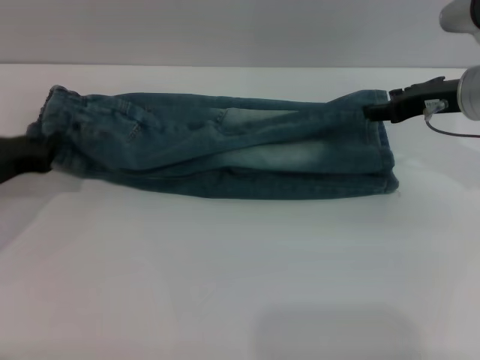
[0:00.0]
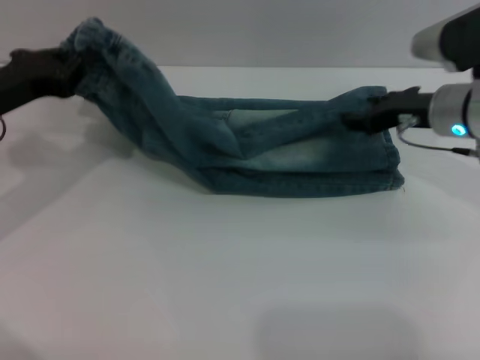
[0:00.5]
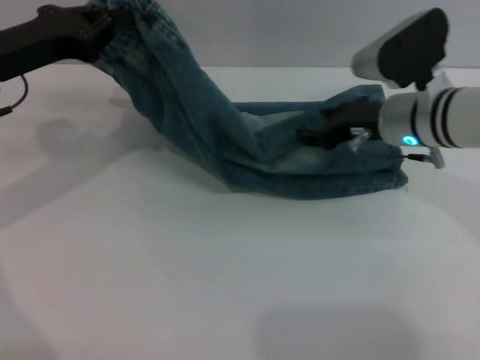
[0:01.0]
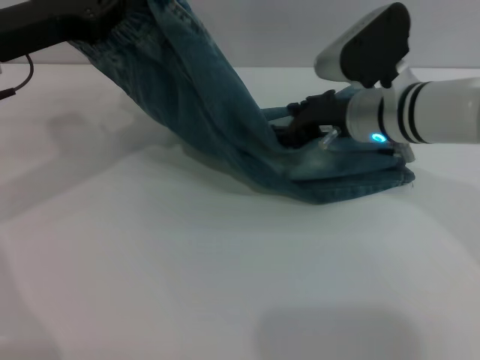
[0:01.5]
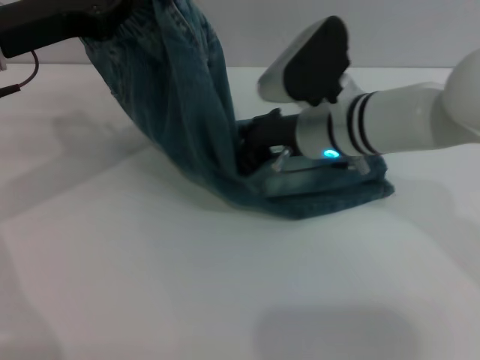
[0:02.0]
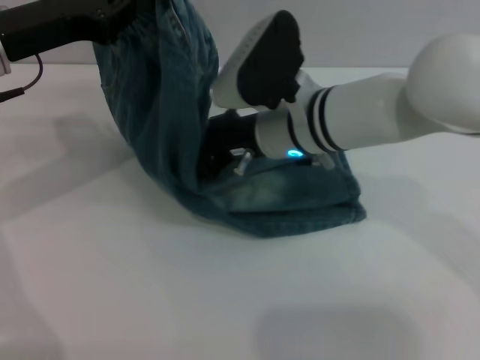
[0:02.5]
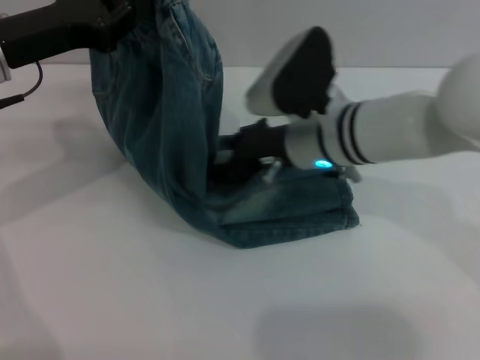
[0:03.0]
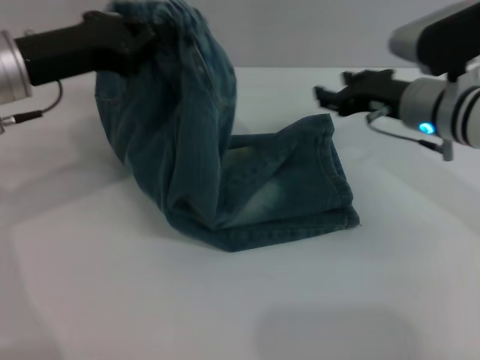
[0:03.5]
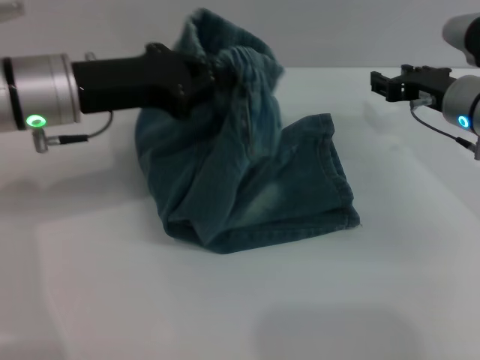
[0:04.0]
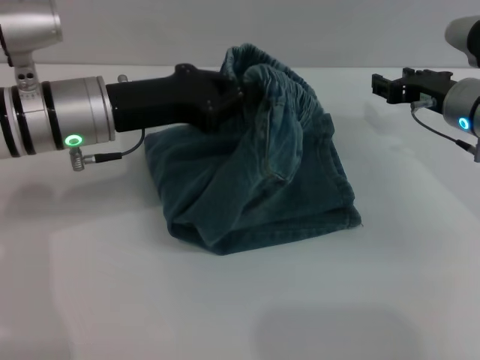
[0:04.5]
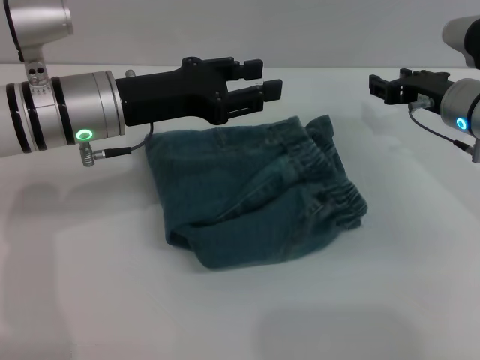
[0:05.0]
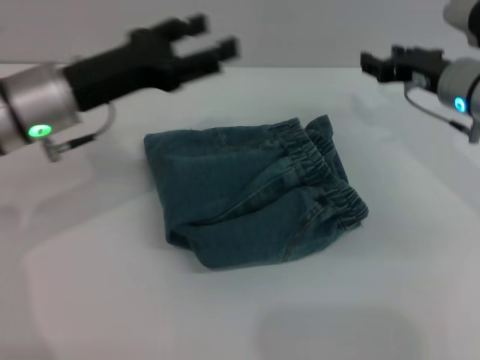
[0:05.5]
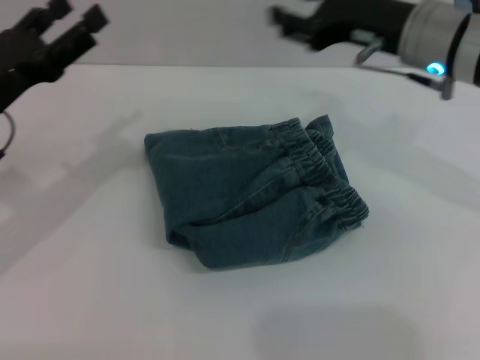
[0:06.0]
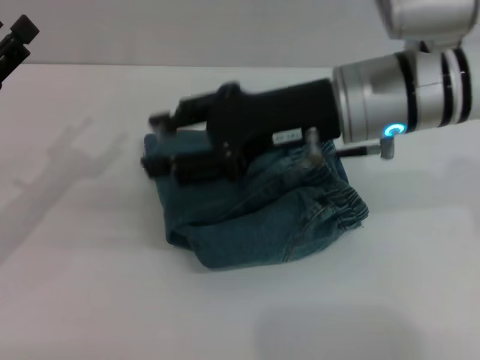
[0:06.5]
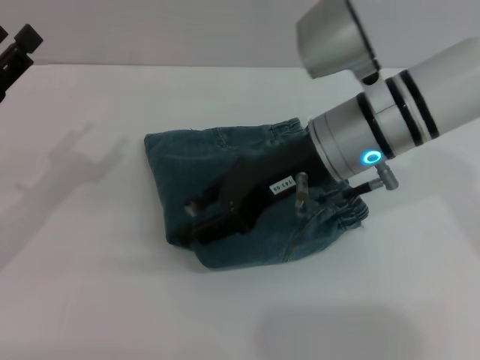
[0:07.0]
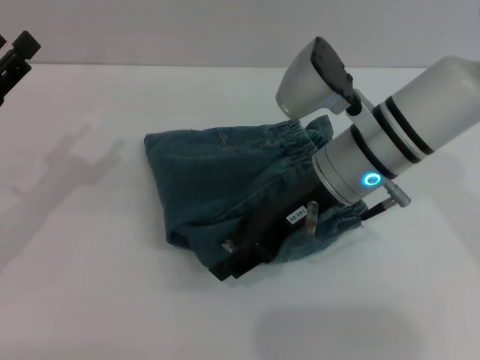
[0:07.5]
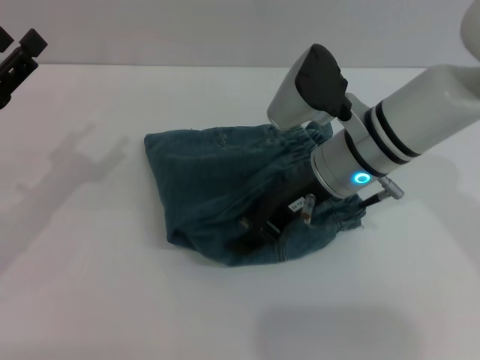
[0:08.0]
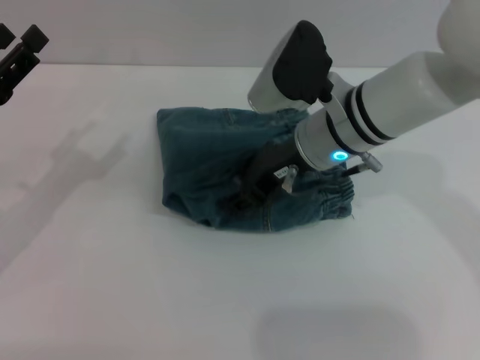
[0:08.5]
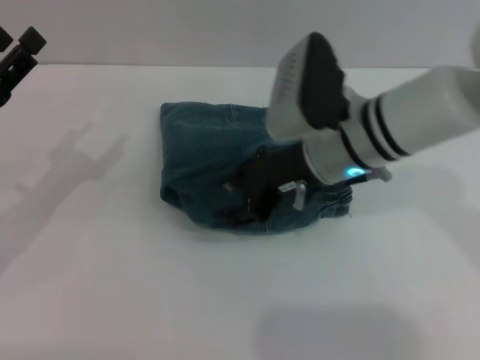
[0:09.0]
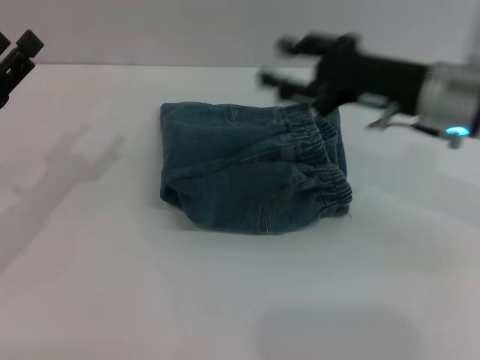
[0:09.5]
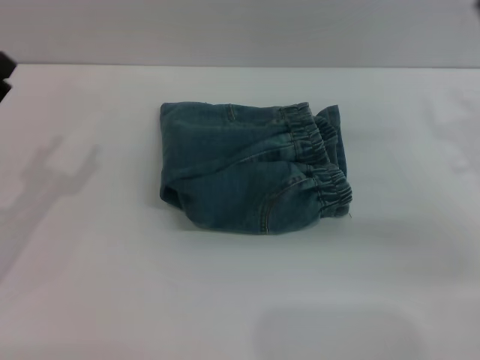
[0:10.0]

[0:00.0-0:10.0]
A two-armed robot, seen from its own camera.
Step, 0:00.0 to 0:04.5: Fold the pants from left to right with the left gripper.
Step, 0:05.0 to 0:09.0: Place the folded trousers onto the center area with the right grippers.
0:00.0 to 0:02.0: The right gripper is displaced to the left by approximately 15 cm; the left gripper goes about 15 cm upward and to the right.
0:02.0 to 0:04.0: The left gripper goes roughly 5 cm to the right, while the right gripper travels to the right by about 15 cm.
0:04.0 to 0:06.0: The right gripper heads upward and to the left, covering about 10 cm; the left gripper goes roughly 5 cm to the left, and opens up.
0:06.0 to 0:08.0: The left gripper shifts by approximately 5 cm. The right gripper is displaced downward and to the left by approximately 10 cm.
0:08.0 to 0:10.0: The right gripper moves to the right, roughly 20 cm.

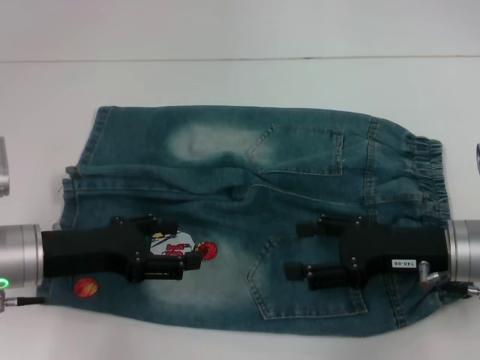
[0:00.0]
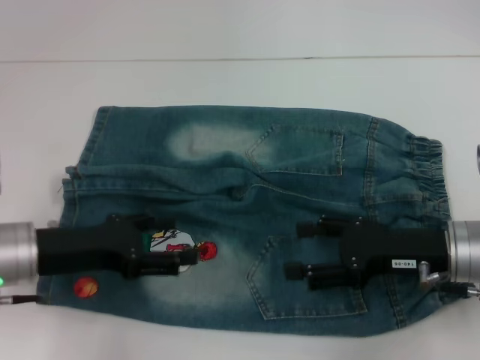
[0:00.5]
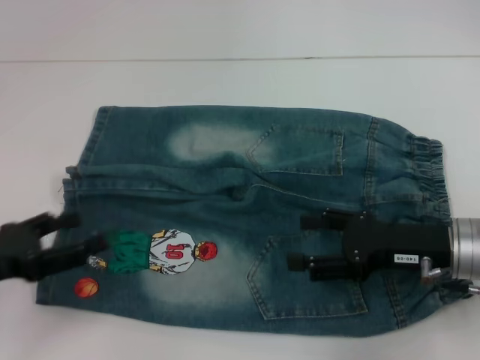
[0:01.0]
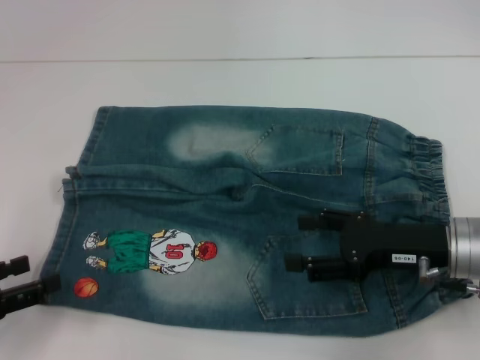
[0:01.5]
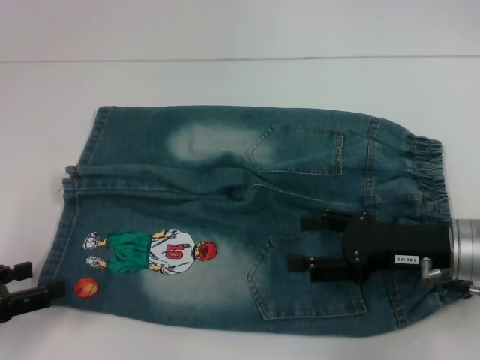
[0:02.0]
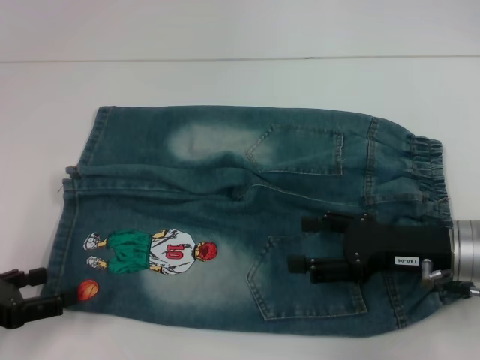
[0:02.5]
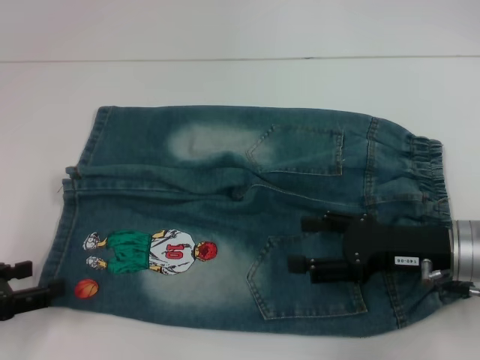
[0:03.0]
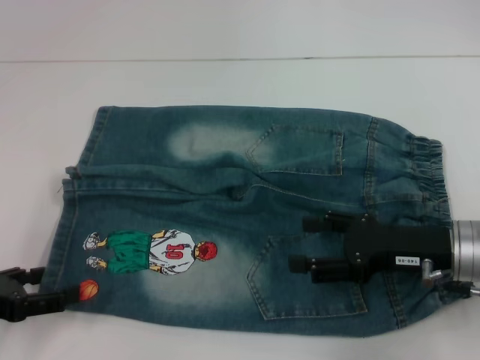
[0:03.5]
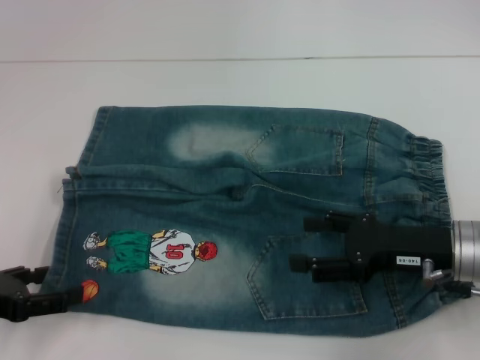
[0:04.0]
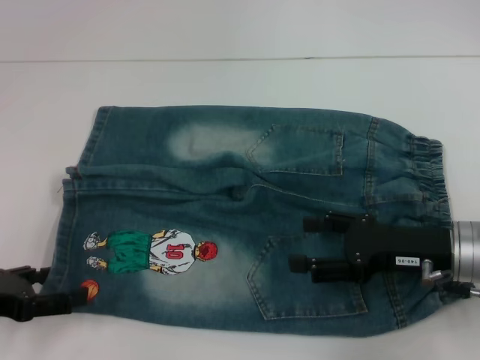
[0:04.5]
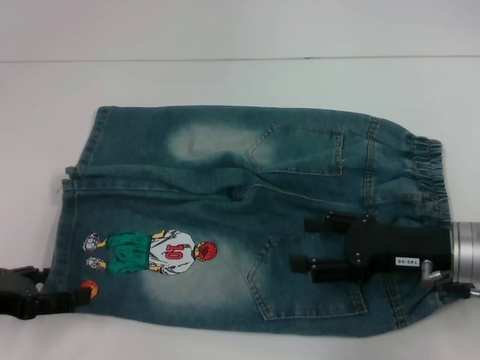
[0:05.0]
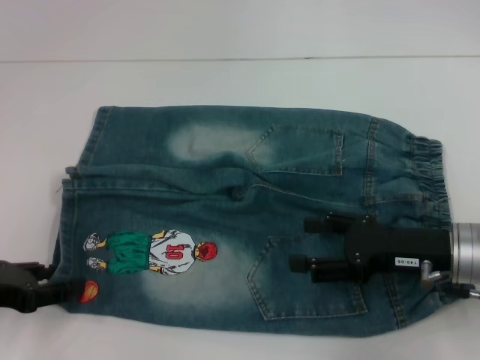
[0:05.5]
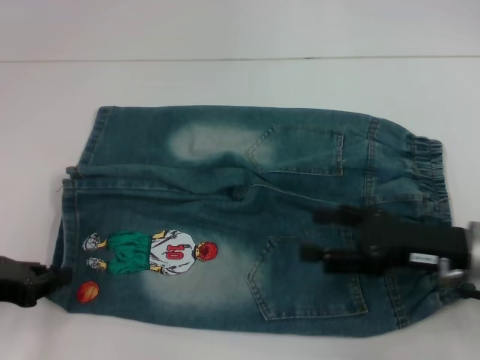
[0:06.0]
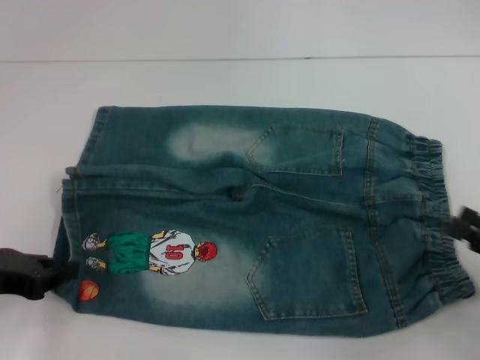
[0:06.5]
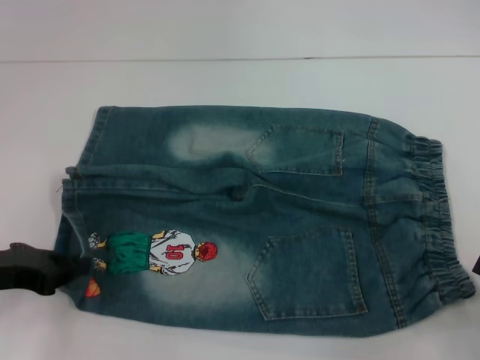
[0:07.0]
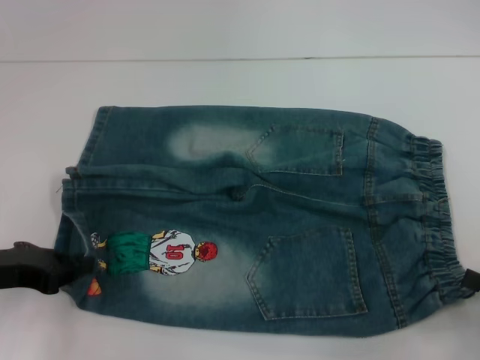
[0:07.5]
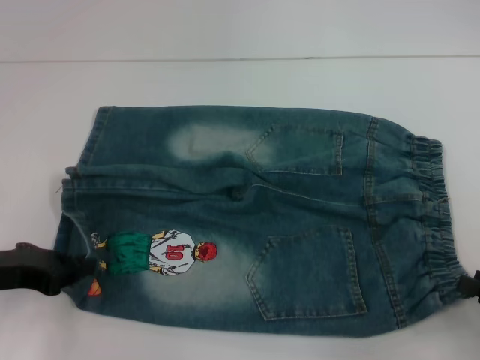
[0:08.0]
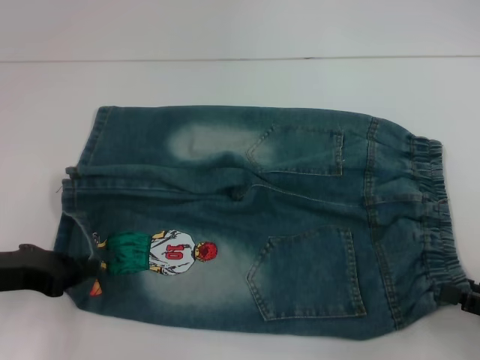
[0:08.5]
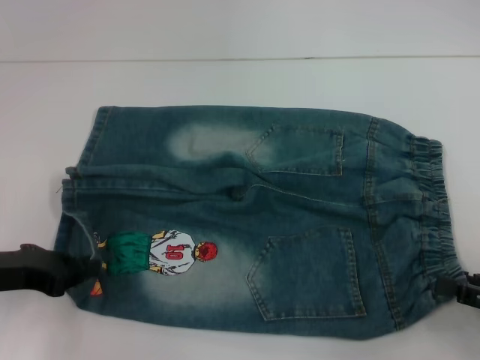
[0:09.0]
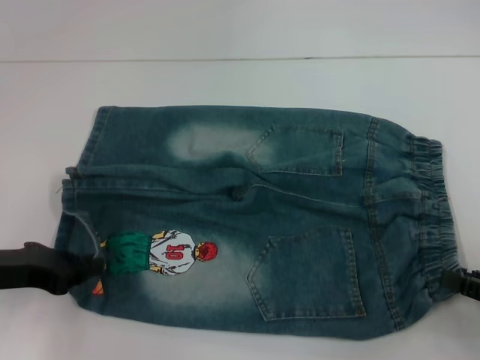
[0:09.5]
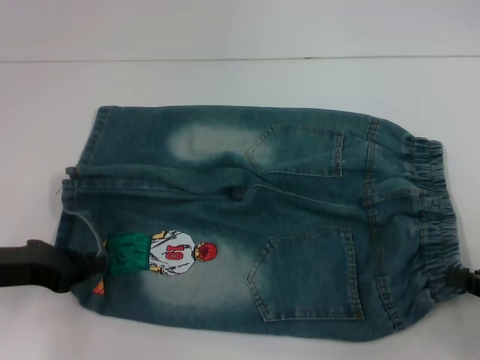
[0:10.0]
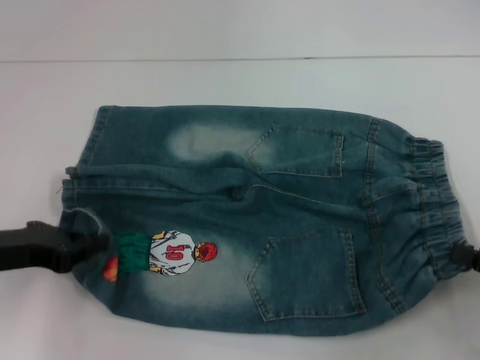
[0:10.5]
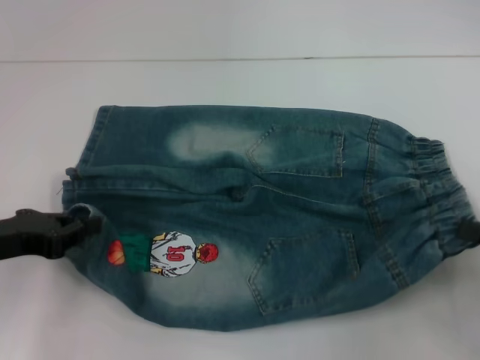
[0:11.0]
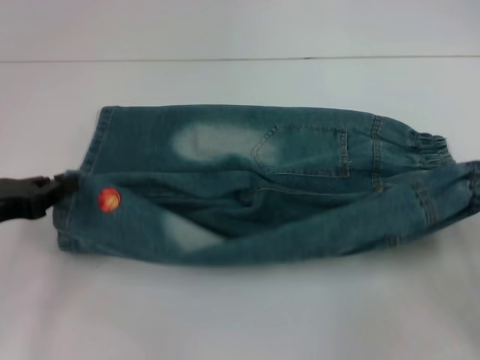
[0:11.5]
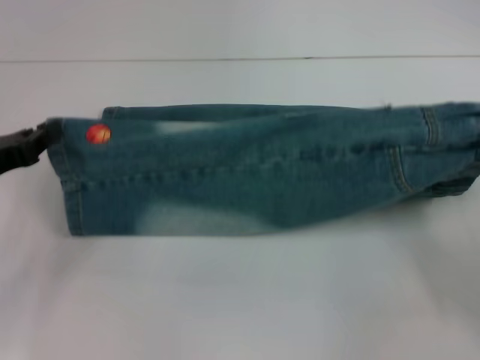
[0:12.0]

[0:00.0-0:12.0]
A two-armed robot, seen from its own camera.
Step, 0:00.0 to 0:05.5: Grab the lower left pant leg with your left hand.
Step, 0:06.0 to 0:09.5: Hold the lower right waistband with your right hand.
0:00.0 to 0:02.0: The left gripper moves to the left and backward, roughly 15 cm.
0:02.0 to 0:04.0: The grippers stay close to where they were, moving slightly.
0:04.0 to 0:06.0: The left gripper closes its fingers.
0:06.0 to 0:08.0: The right gripper shifts roughly 15 cm to the right and backward.
0:08.0 to 0:10.0: The right gripper closes.
0:10.0 to 0:12.0: The right gripper ends up approximately 5 cm from where it was.

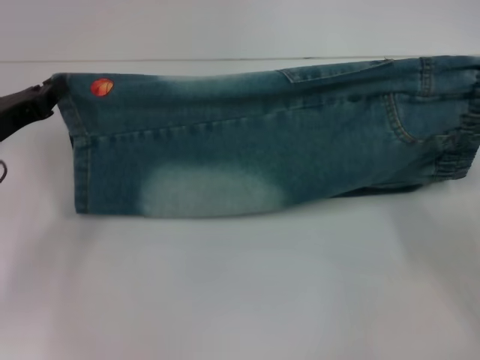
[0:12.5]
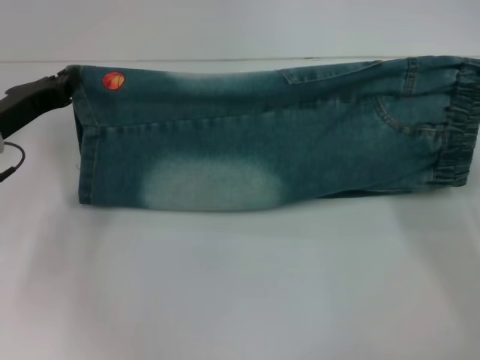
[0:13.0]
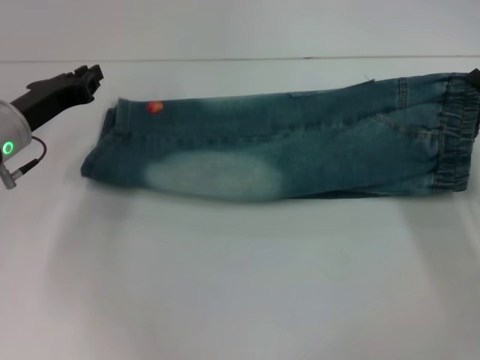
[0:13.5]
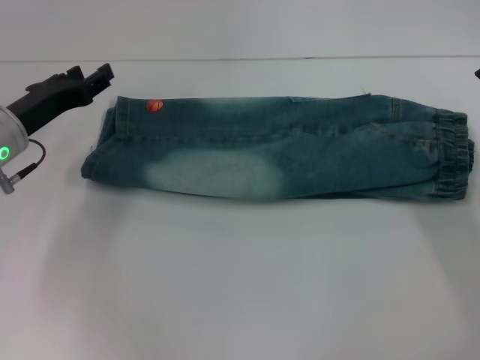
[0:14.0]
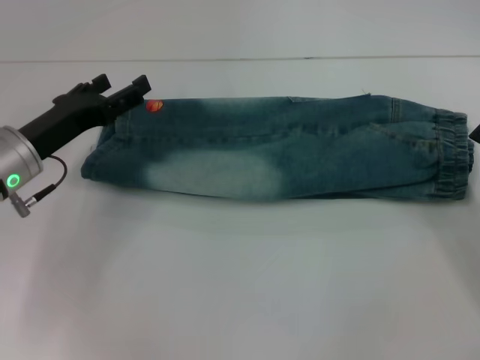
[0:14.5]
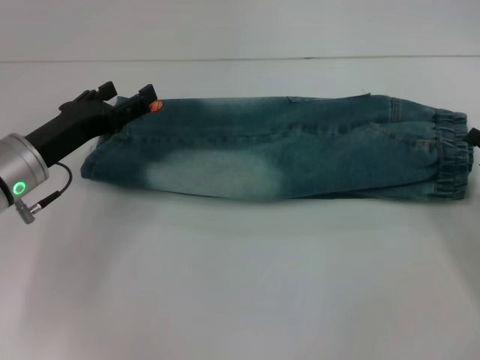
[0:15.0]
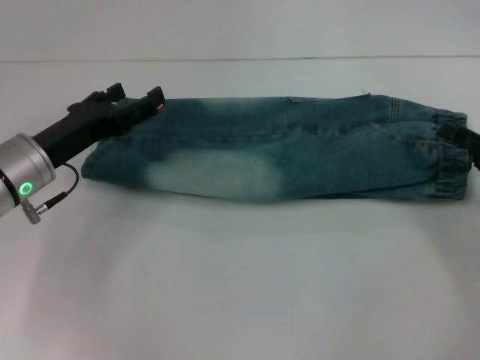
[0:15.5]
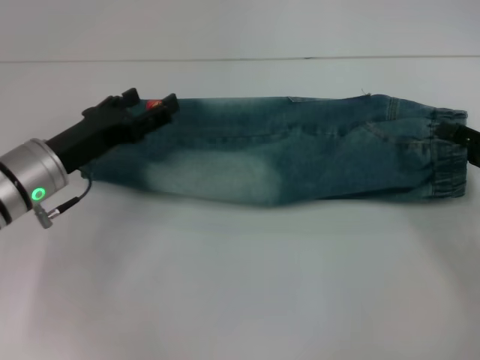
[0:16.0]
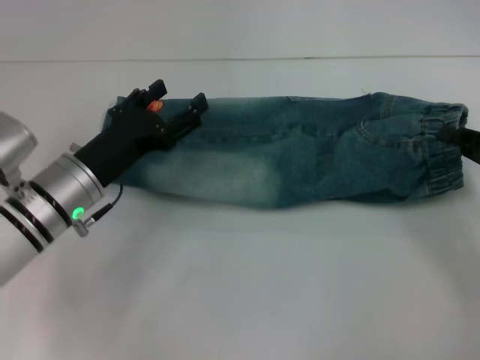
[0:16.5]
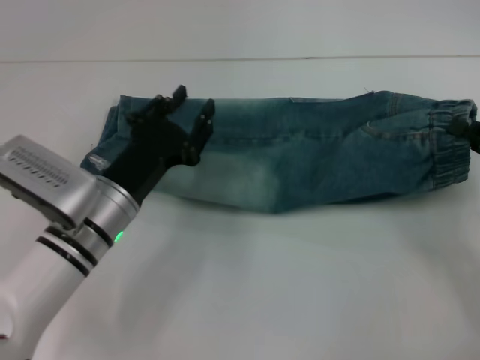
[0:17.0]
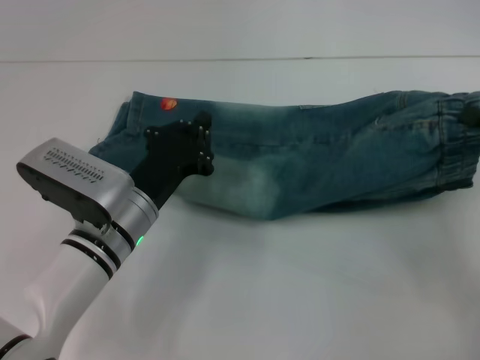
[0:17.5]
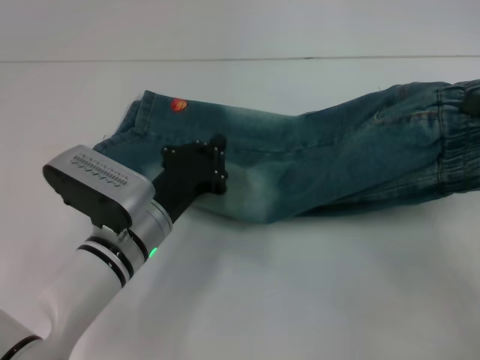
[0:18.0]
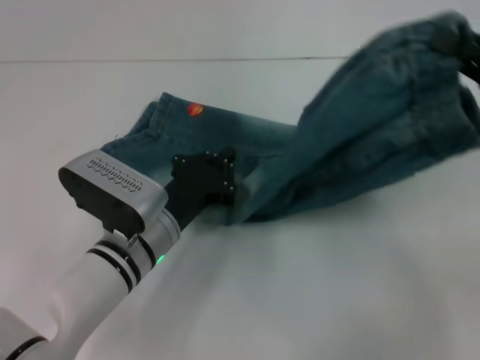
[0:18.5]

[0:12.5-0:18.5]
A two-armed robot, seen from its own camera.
Step, 0:14.0 to 0:16.5: Grab the waistband with your right hand.
0:12.5 to 0:14.5: The right gripper opens, while the left gripper goes roughly 5 cm to the right, and opens its fingers.
0:14.5 to 0:16.5: The right gripper closes; the left gripper shifts approximately 5 cm to the right.
0:16.5 to 0:18.5: The right gripper travels upward by roughly 10 cm, and closes up; the left gripper goes about 10 cm to the right, and closes.
